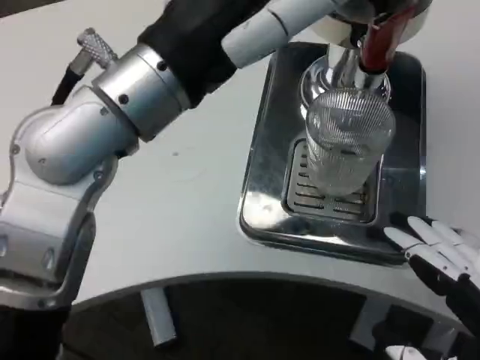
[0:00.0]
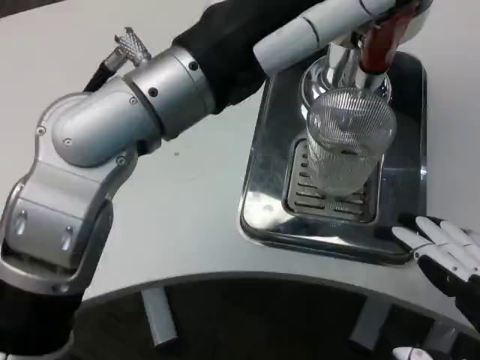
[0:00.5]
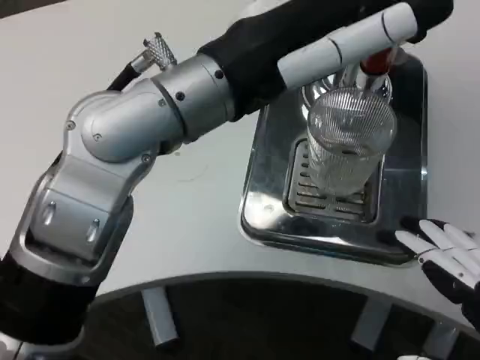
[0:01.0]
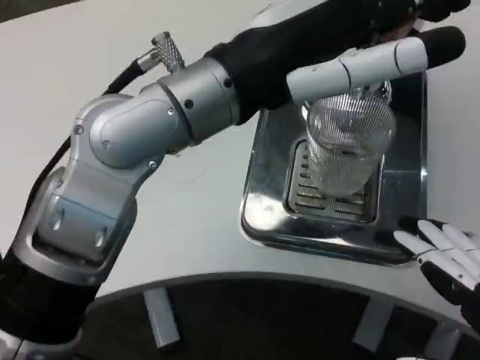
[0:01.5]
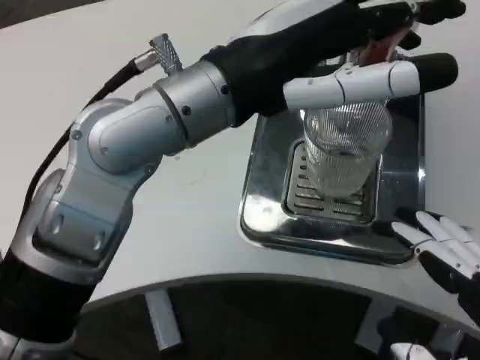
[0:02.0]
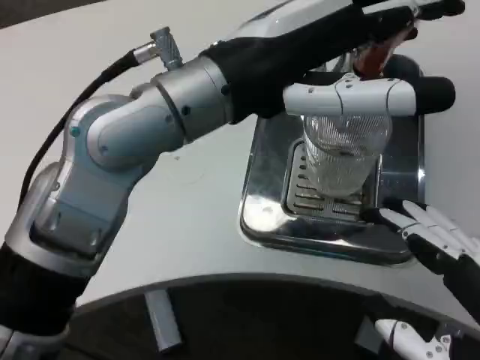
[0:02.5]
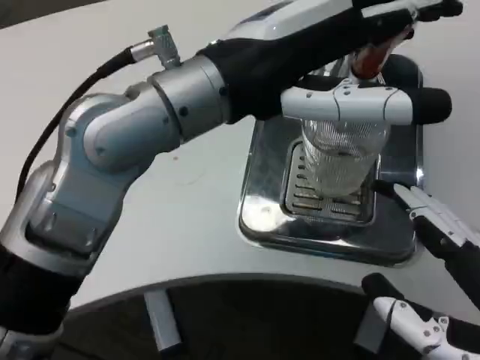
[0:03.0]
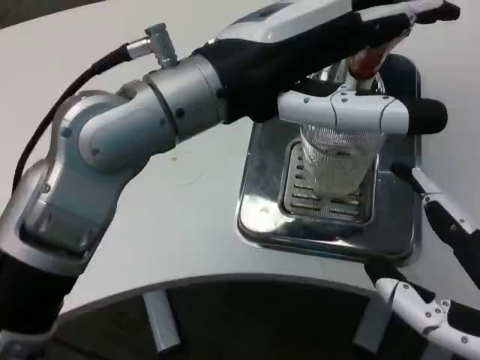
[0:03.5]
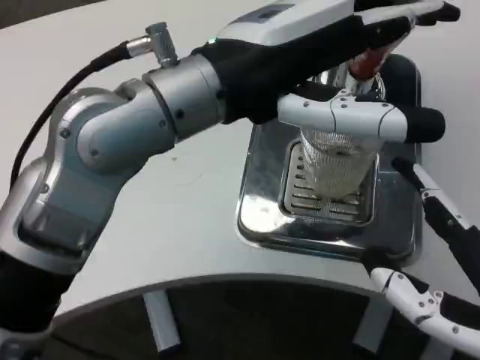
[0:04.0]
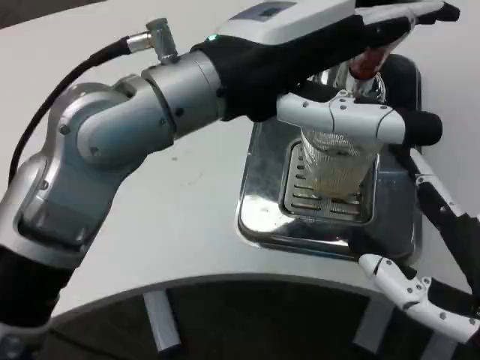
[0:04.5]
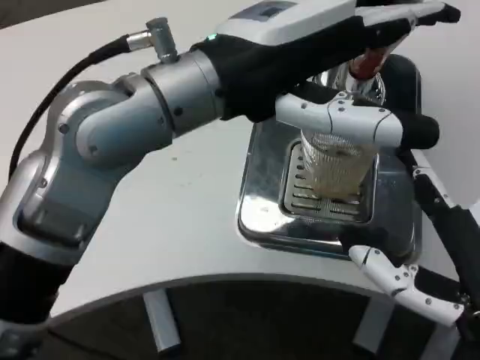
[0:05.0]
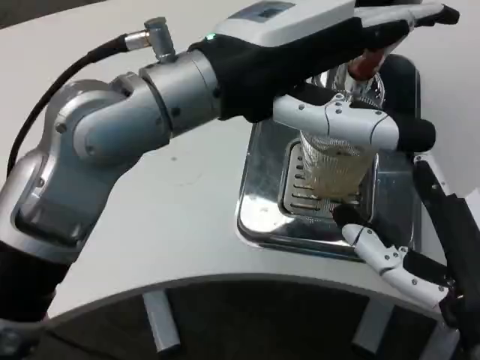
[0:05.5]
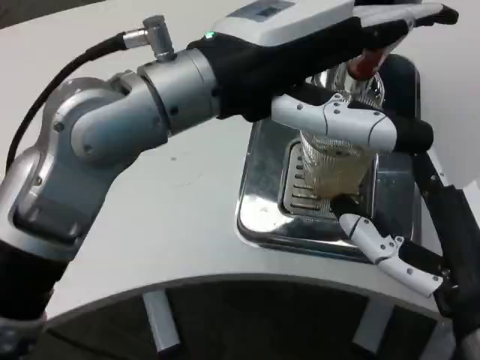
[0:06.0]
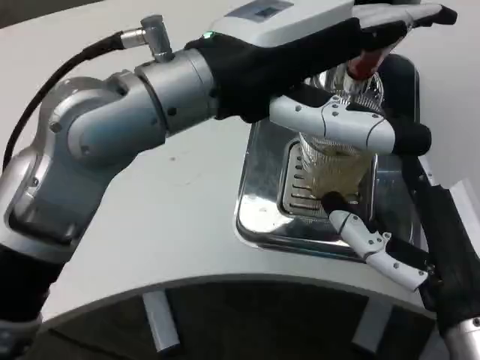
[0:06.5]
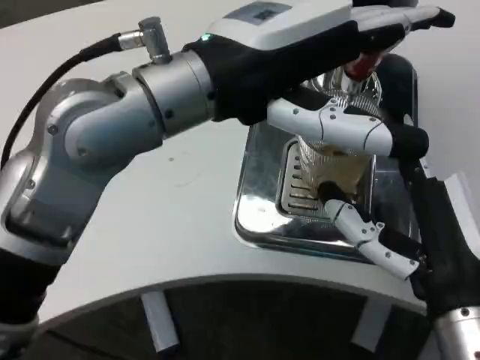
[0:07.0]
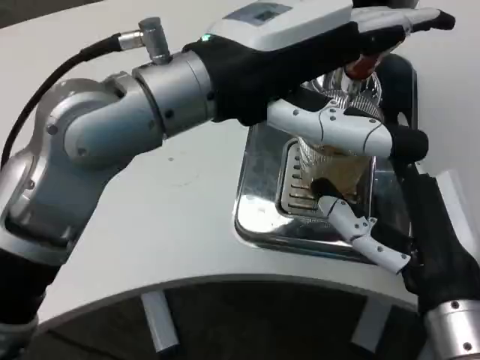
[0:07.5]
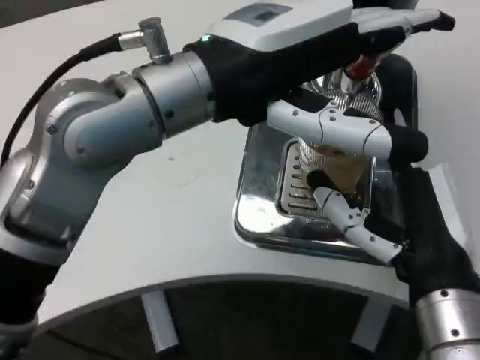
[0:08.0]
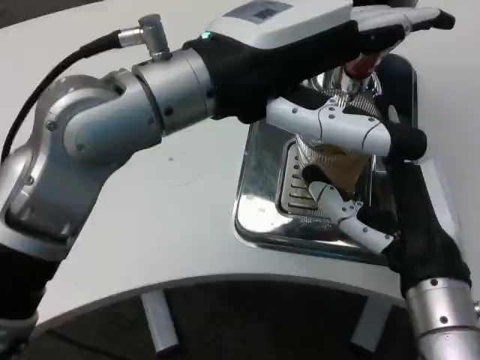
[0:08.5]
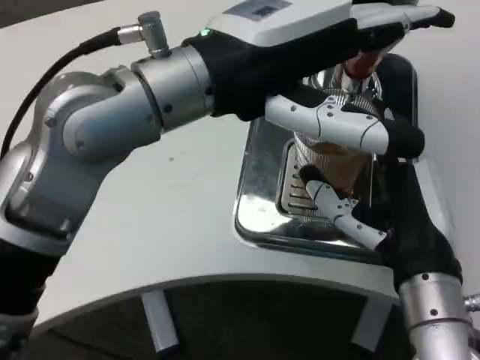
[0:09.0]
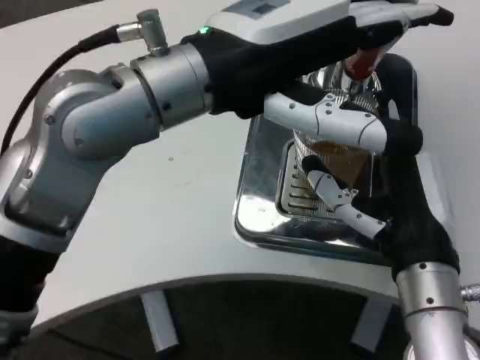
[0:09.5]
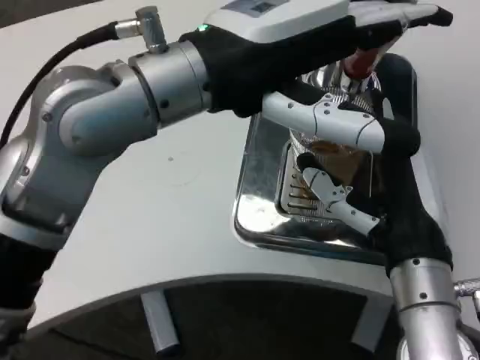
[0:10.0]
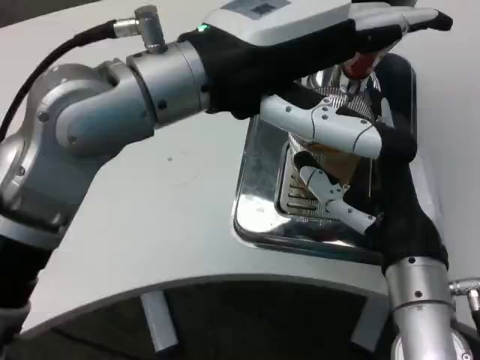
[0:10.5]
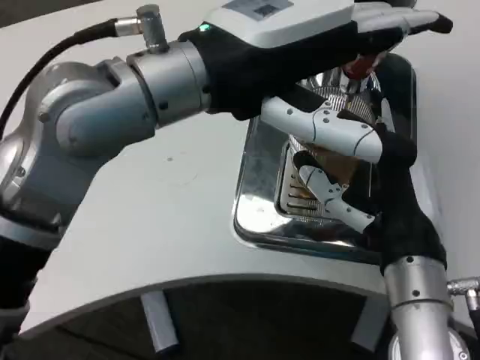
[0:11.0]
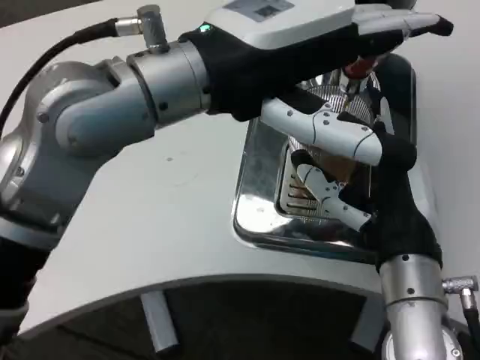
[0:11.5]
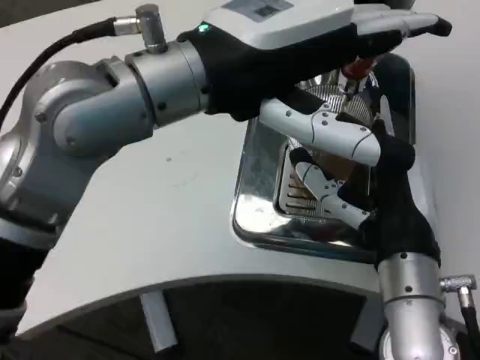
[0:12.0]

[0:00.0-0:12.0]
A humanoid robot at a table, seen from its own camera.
Task of the whole recording: Grasp the cup under the faucet to collect the drink, then remove the cup.
0:04.0 to 0:06.0: The right hand ends up approximately 5 cm from where it was.

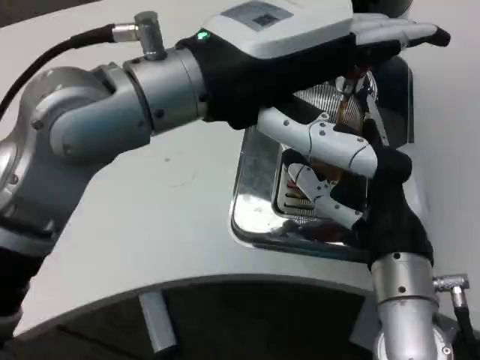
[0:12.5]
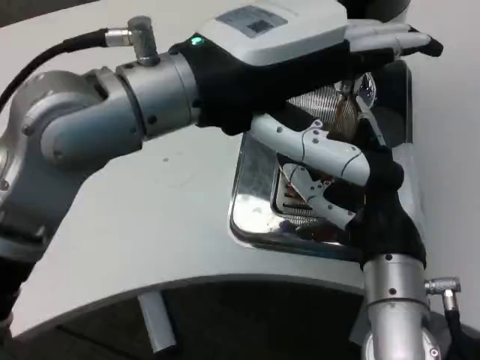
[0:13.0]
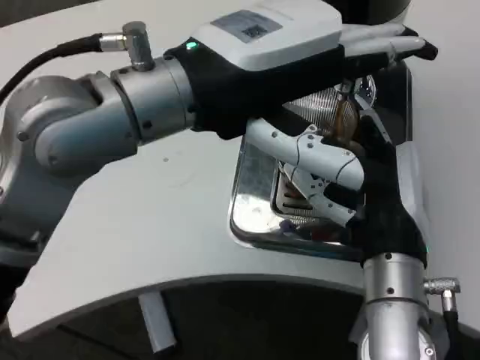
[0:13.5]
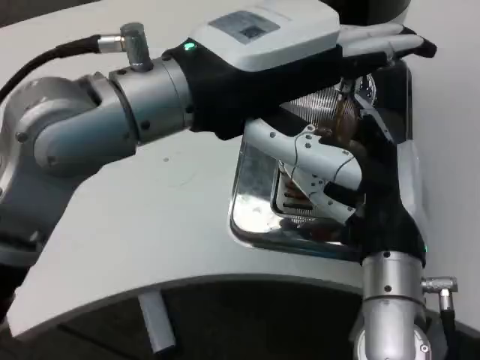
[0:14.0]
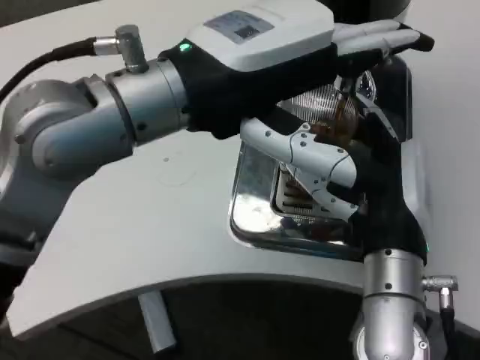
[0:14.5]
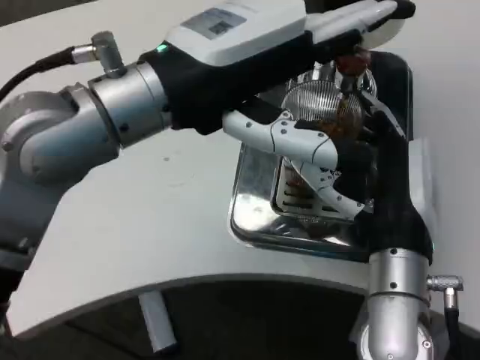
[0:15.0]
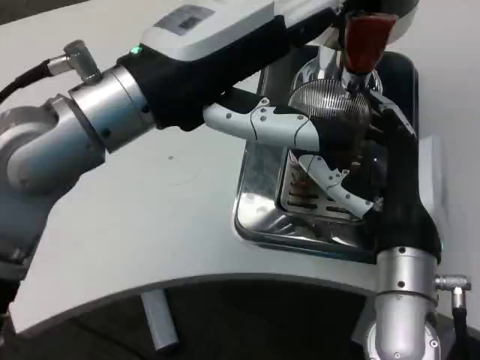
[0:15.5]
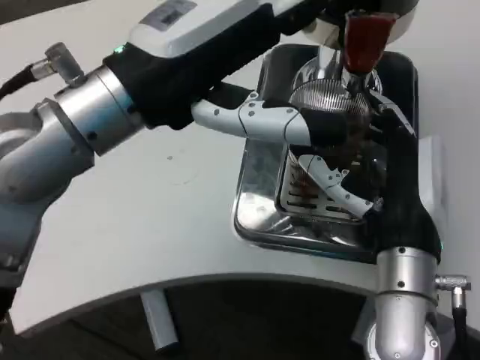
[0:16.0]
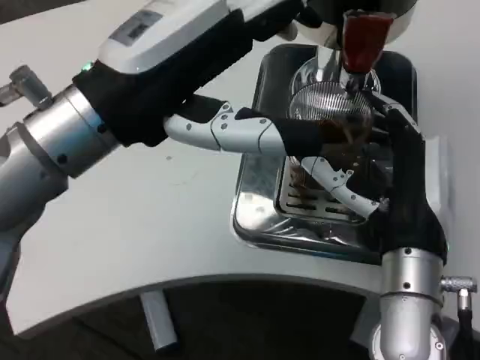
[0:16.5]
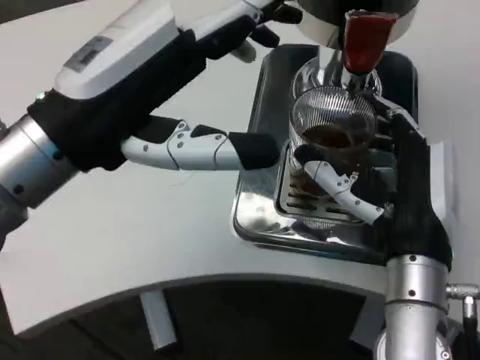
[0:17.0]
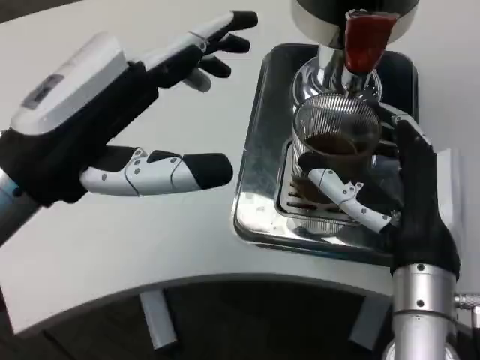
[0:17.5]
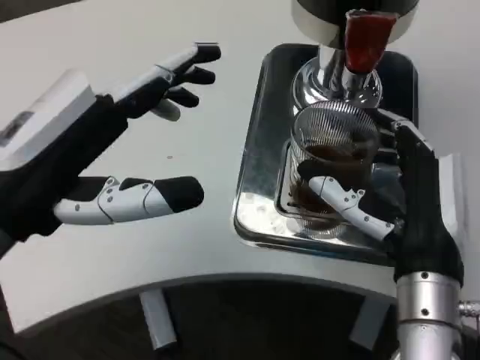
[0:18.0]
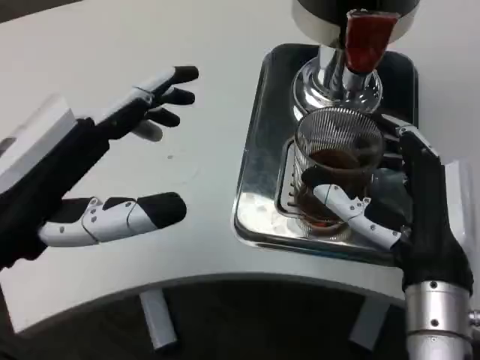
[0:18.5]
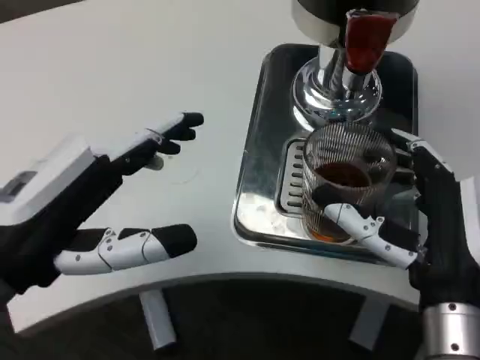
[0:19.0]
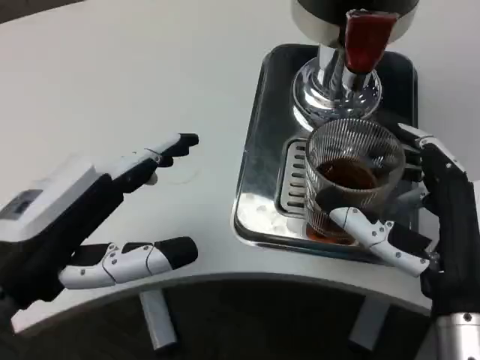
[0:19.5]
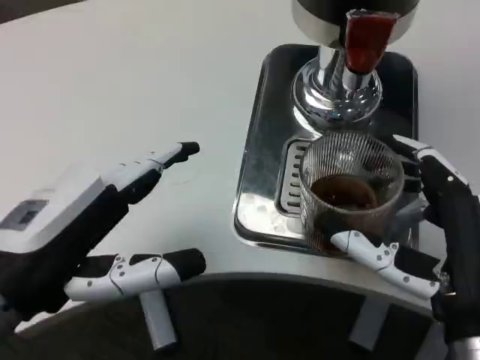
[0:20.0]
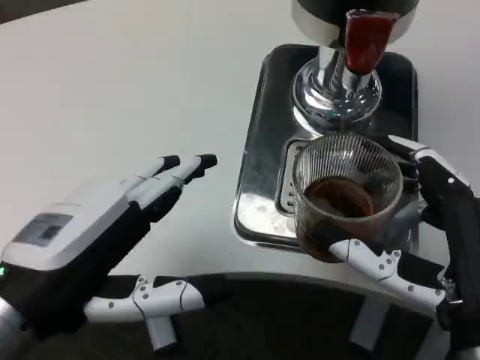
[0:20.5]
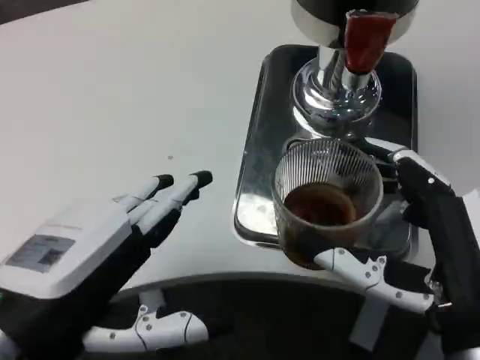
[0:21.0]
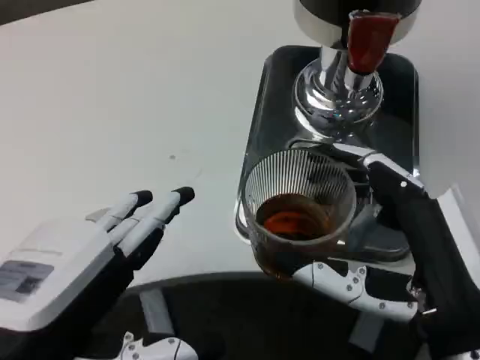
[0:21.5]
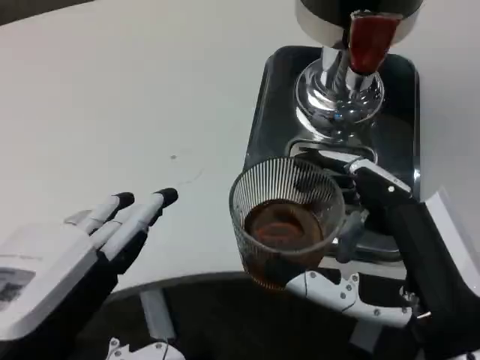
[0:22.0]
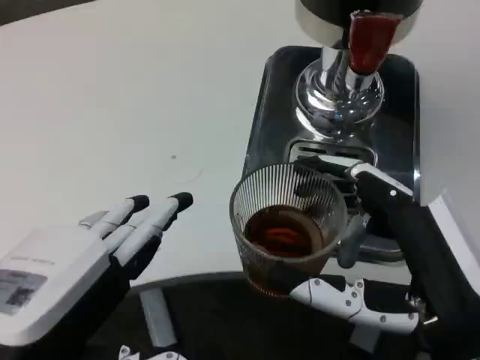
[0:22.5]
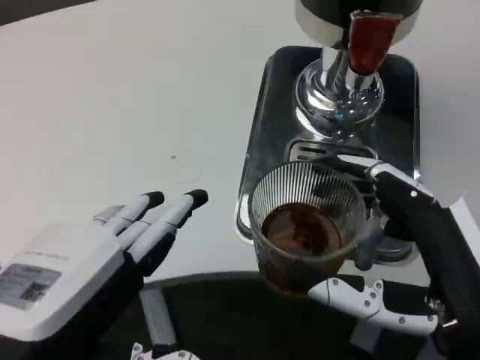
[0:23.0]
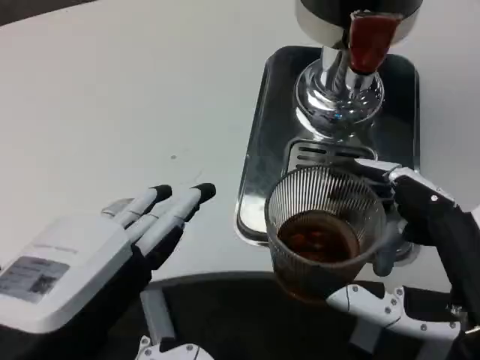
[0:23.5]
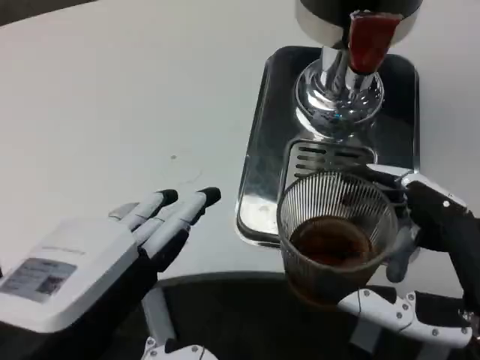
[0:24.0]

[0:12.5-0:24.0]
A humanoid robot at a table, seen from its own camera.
Task of the whole recording: Grasp the cup under the faucet to collect the drink, then remove the cup.
0:14.5 to 0:16.5: The left hand shifts by roughly 5 cm.
0:16.5 to 0:18.5: The left hand travels downward, to the left and backward by some 10 cm.
0:18.5 to 0:20.0: The right hand moves backward, approximately 5 cm.
0:20.0 to 0:22.0: The left hand heads backward, covering approximately 10 cm.

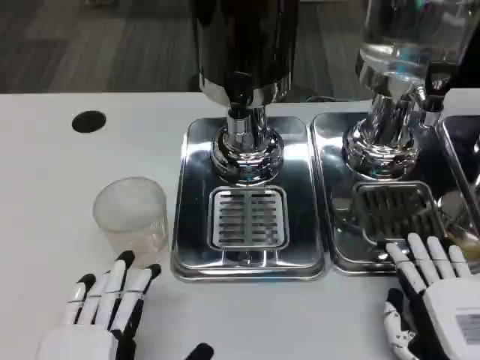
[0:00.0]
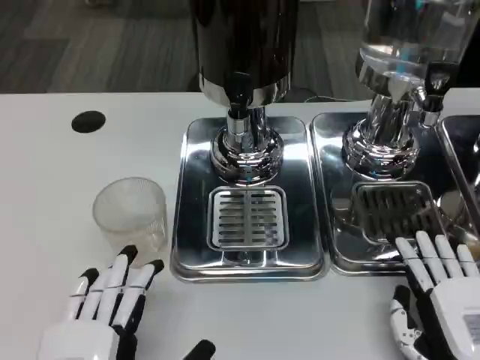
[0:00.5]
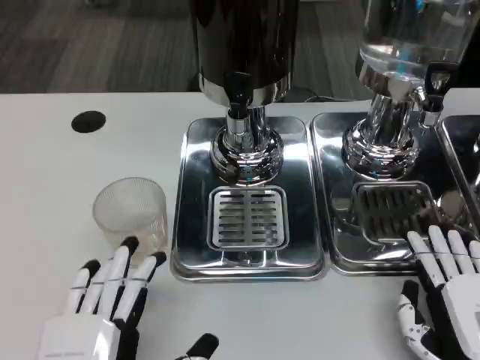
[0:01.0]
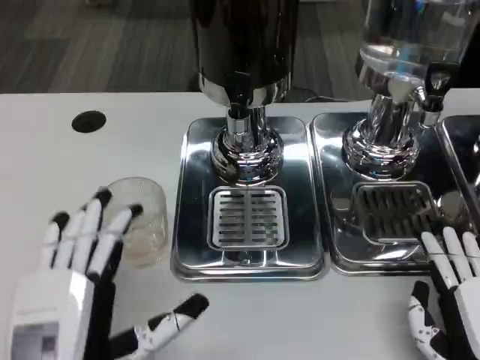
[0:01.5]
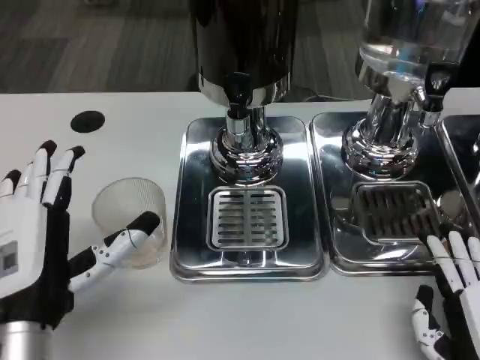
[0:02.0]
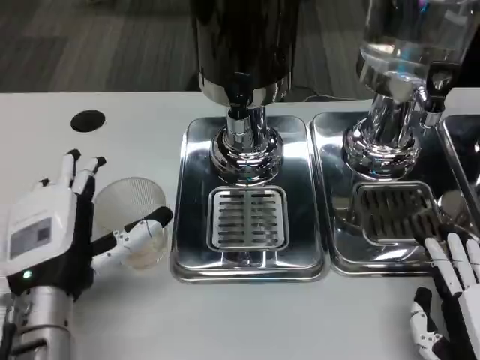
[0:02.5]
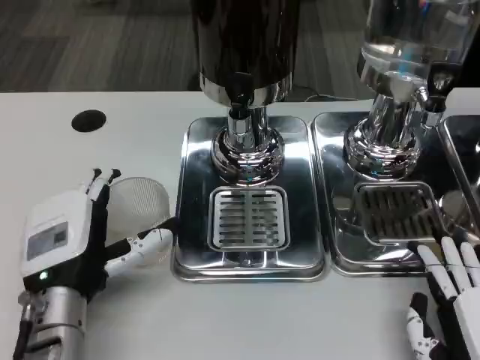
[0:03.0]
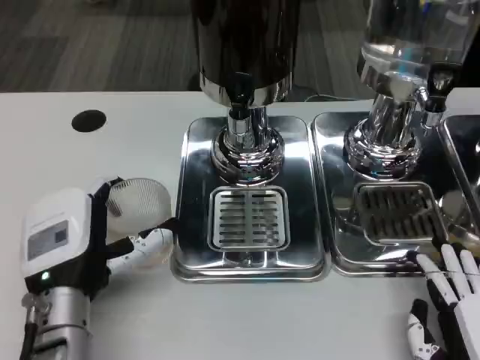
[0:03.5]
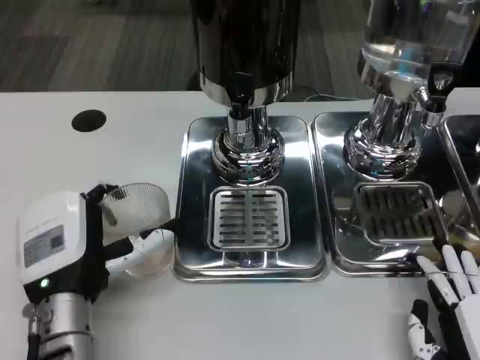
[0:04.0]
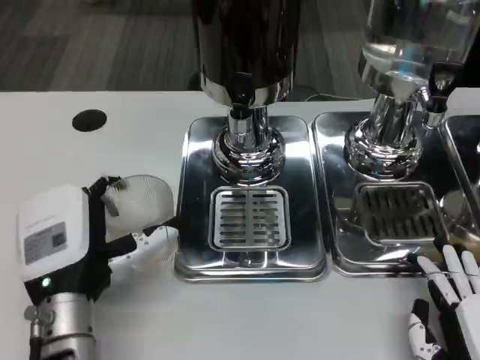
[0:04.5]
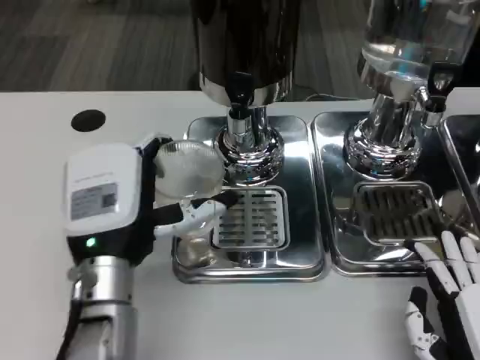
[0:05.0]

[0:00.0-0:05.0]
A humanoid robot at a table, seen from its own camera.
Task of the whole recording: Grasp the cup under the faucet to collect the drink, then remove the cup.
0:00.0 to 0:02.5: The left hand moves forward, about 15 cm.
0:02.5 to 0:05.0: The left hand travels to the right by some 5 cm.
